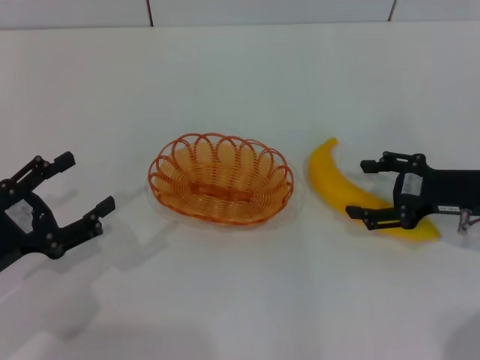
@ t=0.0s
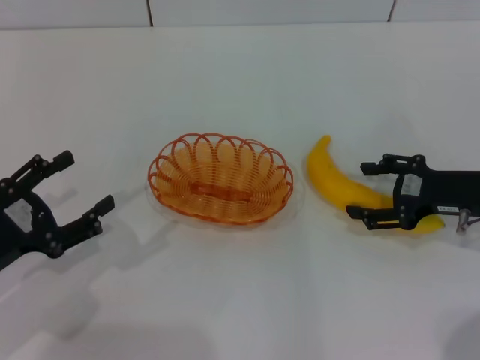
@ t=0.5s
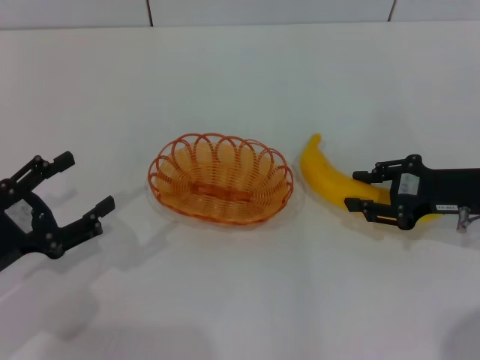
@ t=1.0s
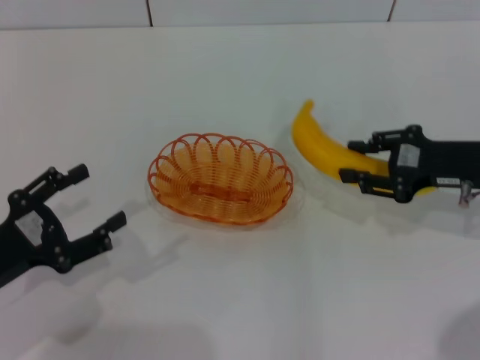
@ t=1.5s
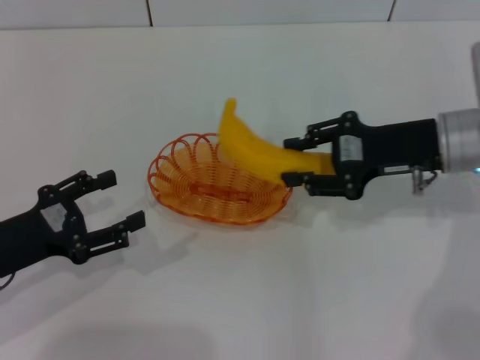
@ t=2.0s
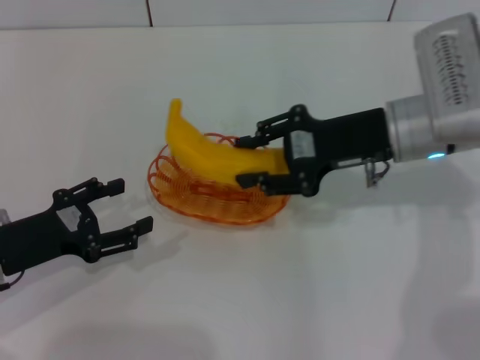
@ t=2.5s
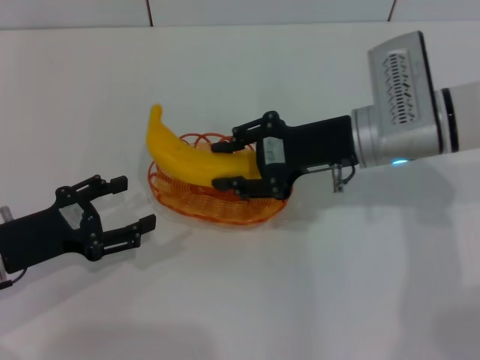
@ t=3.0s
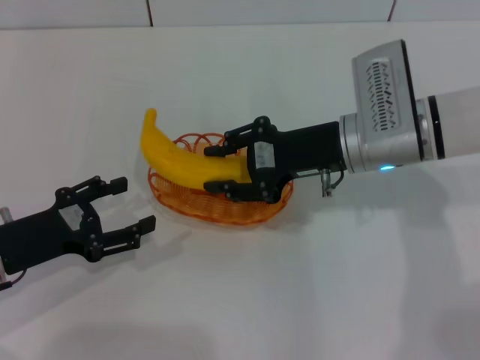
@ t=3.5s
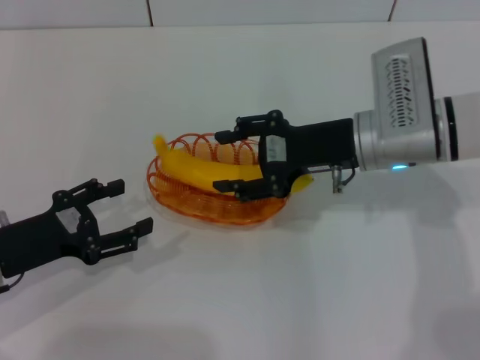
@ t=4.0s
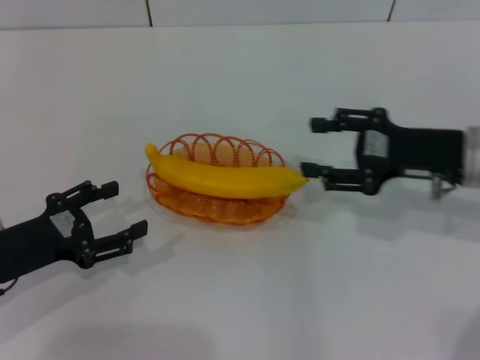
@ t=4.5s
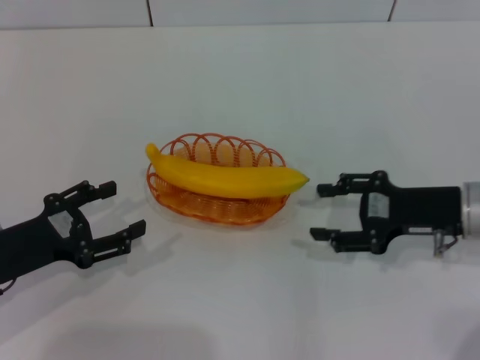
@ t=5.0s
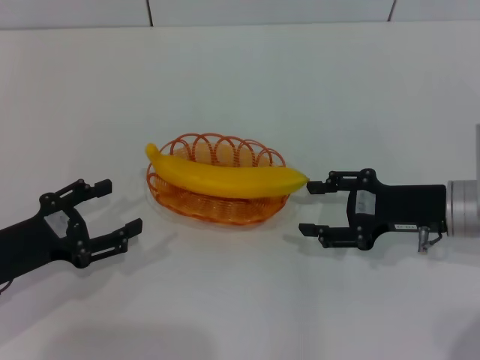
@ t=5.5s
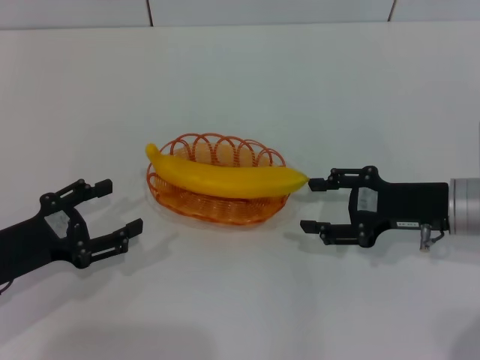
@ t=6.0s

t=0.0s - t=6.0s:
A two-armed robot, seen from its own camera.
Step, t=1.5s - t=4.0s: Place the banana into the basket with the right gripper.
t=0.0s - t=2.0s: The right gripper goes about 10 cm to the left and upward, and closes up.
t=2.0s - t=4.0s: The right gripper moves to the left, roughly 5 cm, and opens.
t=4.0s - t=6.0s: The right gripper shifts some 10 cm to the right and backward.

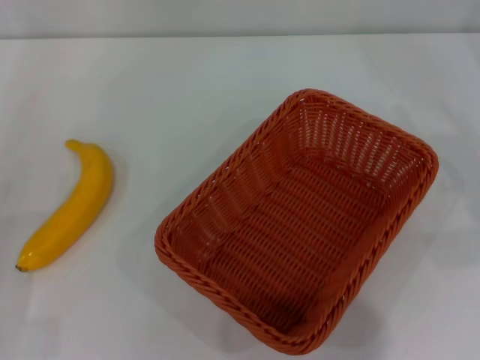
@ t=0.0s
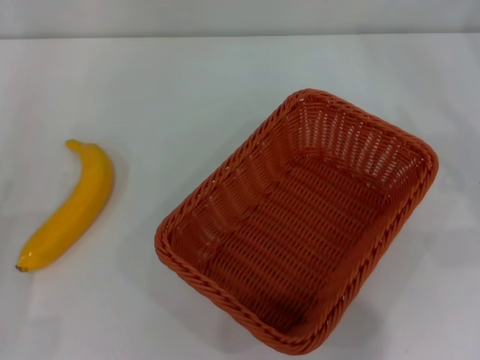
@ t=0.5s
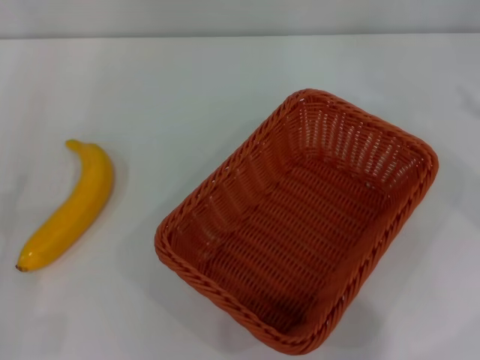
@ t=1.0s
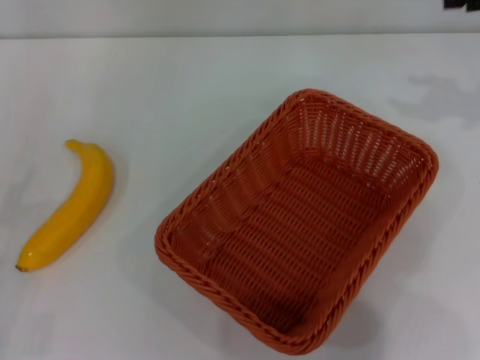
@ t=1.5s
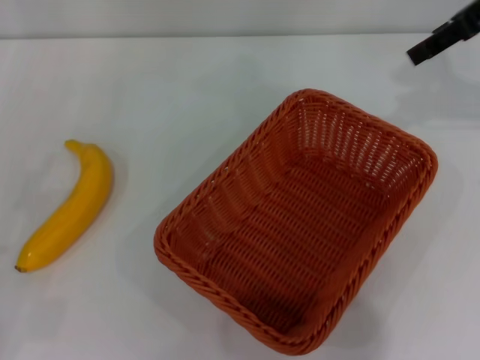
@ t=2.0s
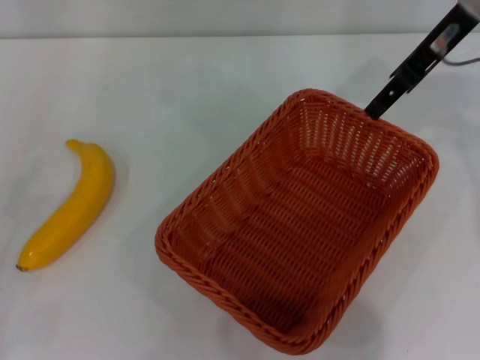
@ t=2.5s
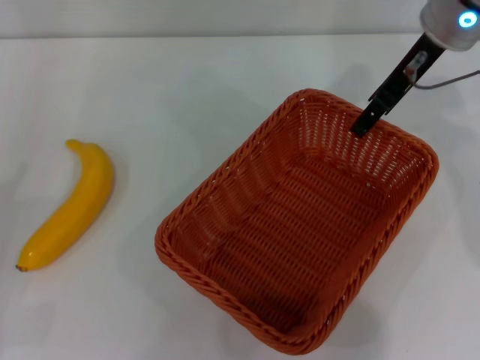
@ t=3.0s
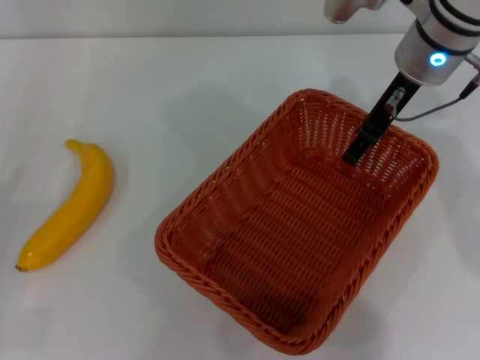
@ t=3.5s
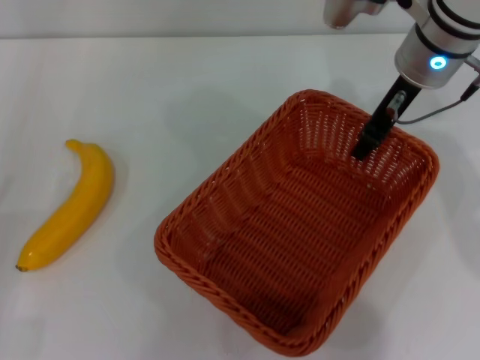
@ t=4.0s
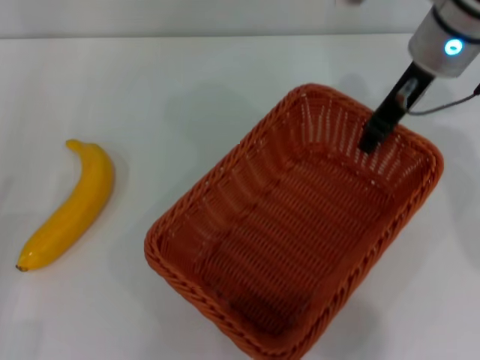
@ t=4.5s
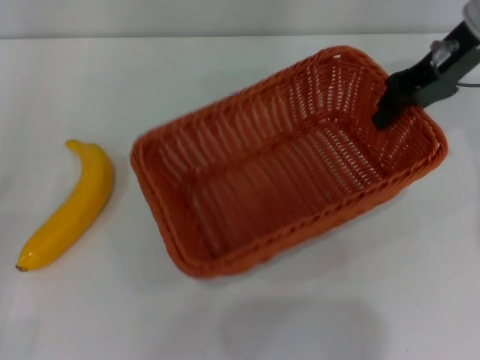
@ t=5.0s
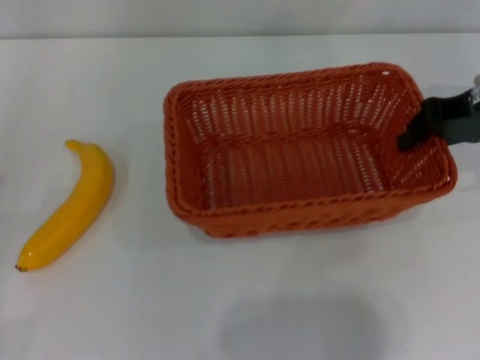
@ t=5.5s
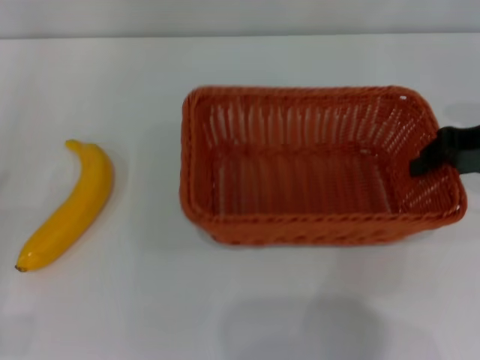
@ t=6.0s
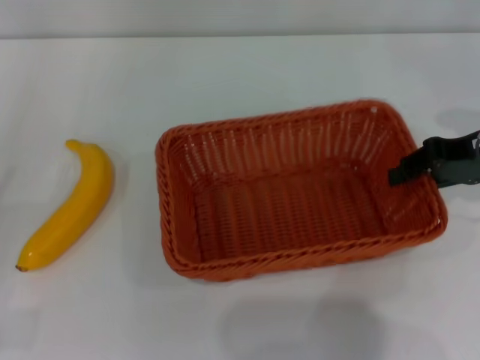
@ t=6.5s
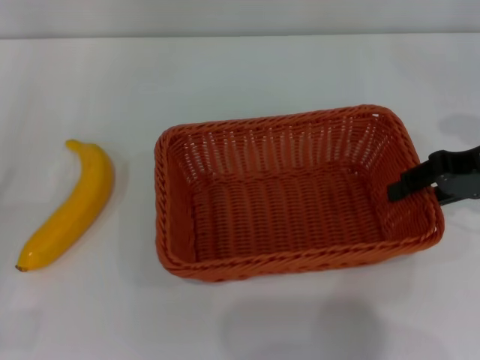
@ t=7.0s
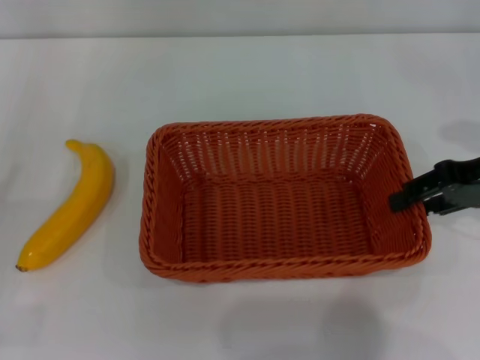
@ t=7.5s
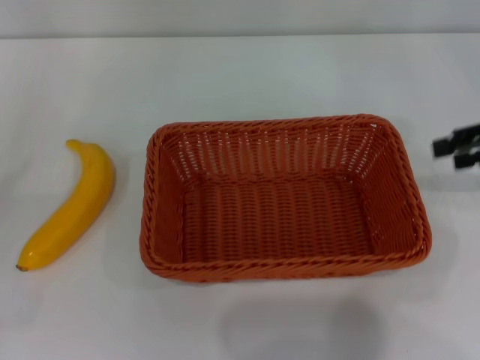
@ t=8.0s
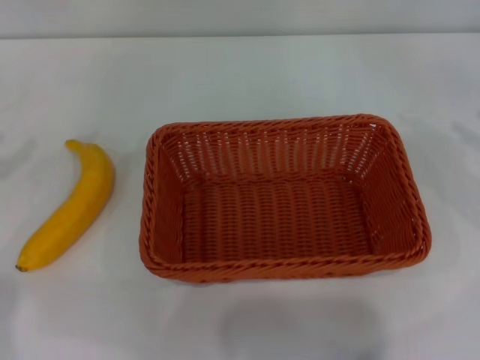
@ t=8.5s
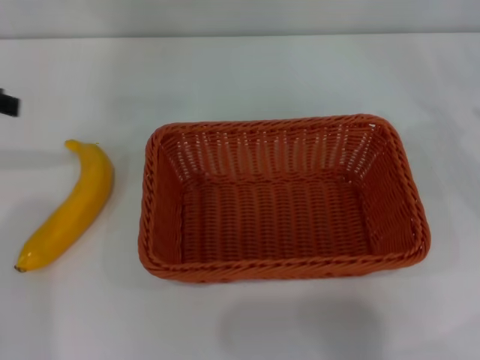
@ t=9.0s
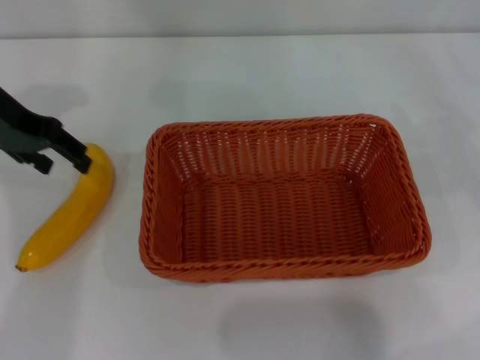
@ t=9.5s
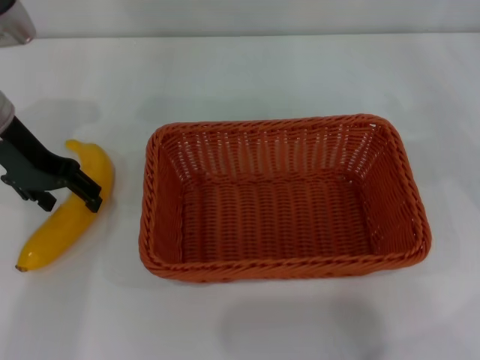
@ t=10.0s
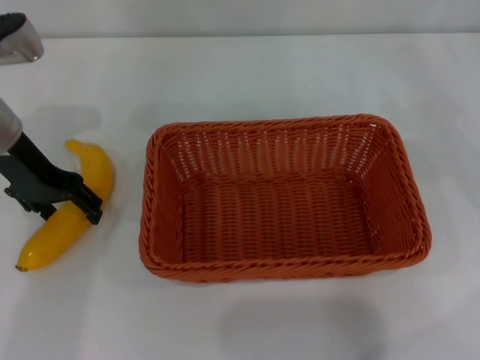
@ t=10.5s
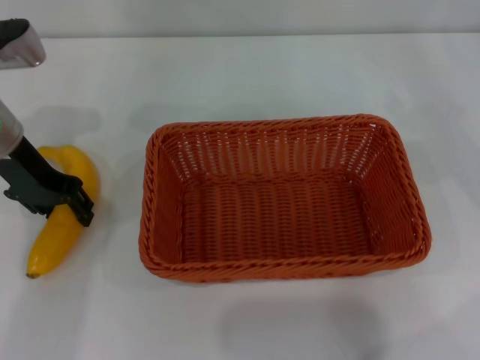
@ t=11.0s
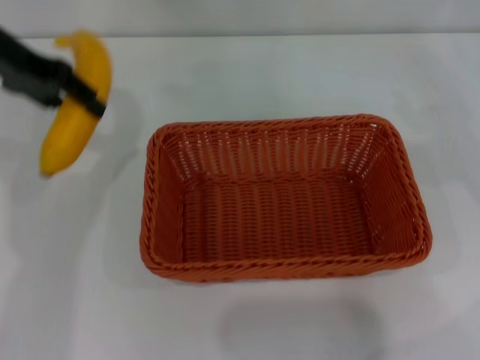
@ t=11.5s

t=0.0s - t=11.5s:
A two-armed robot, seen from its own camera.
Step, t=0.0s - t=4.5s: Pick up the light basket with the right gripper.
Step, t=5.0s - t=7.5s: Place the light basket in the center of view with the right gripper.
Step, t=8.0s - t=11.0s: Pick up the banana with the left gripper.
t=0.0s - t=2.0s: The right gripper shifts some 30 cm upward, forward and to the left.
t=2.0s - t=4.0s: The right gripper moves to the left and downward, roughly 15 cm, and closes up.
t=4.0s - t=6.0s: The right gripper shifts roughly 15 cm to the right and backward, and closes up.
t=6.0s - t=7.5s: The right gripper opens up.
t=7.5s - t=9.5s: The left gripper heads forward, to the right and upward, covering approximately 30 cm; the right gripper shifts some 15 cm to the right, and opens its fingers.
t=9.5s - t=11.5s: The left gripper closes its fingers.

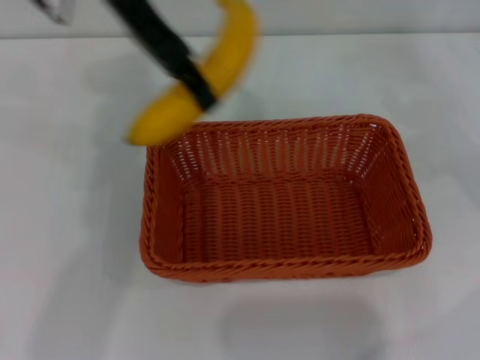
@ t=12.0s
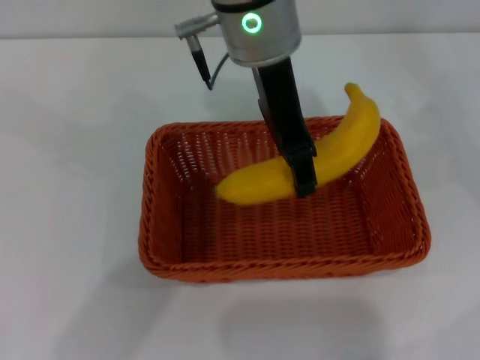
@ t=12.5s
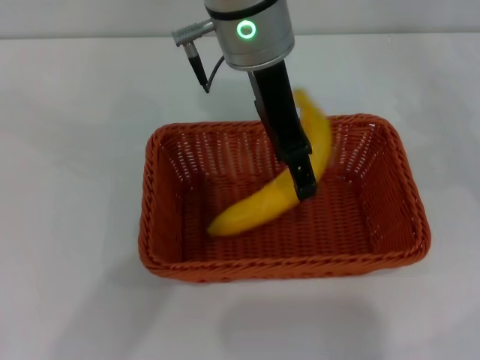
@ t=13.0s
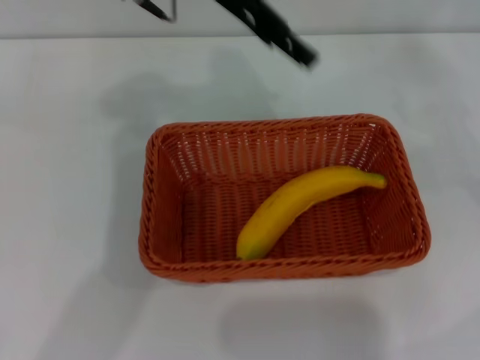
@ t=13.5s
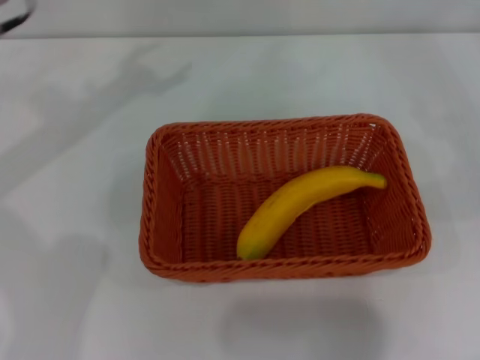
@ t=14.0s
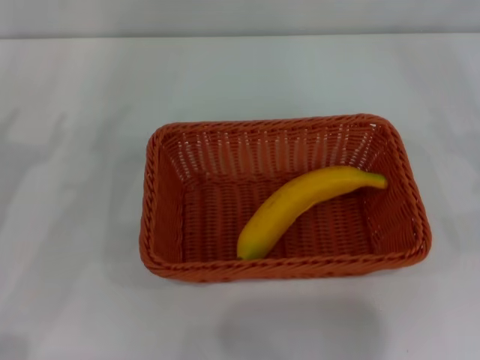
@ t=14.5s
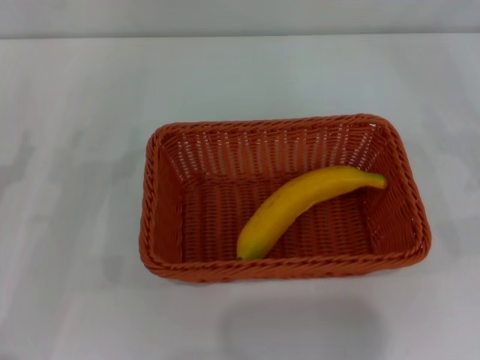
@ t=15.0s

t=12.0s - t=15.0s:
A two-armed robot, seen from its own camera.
Step, t=12.0s - t=13.0s: Place the banana into the light basket with the left gripper.
t=12.0s - t=13.5s: The left gripper opens up.
t=13.5s - t=15.0s: The left gripper moves to the left, downward and backward, some 40 cm; the right gripper heads downward and backward, covering about 10 cm.

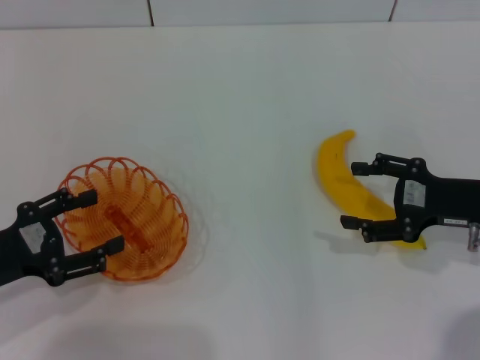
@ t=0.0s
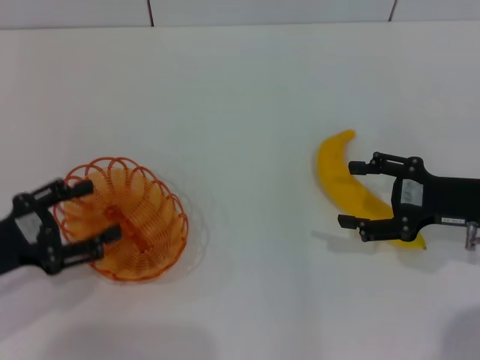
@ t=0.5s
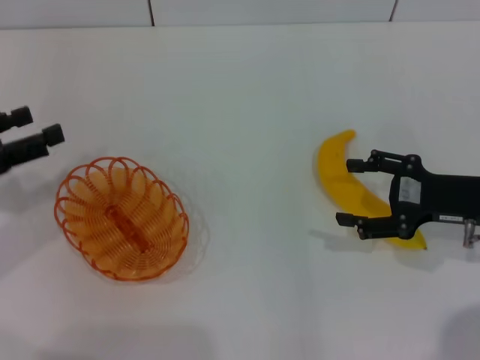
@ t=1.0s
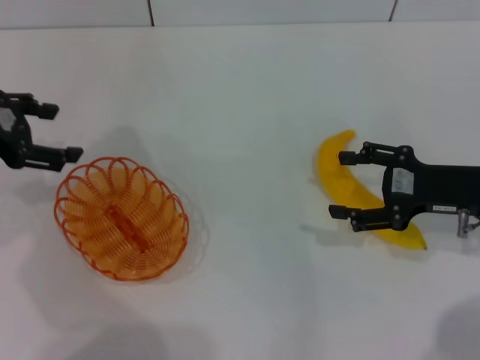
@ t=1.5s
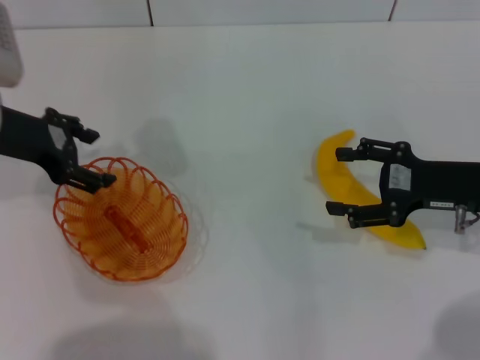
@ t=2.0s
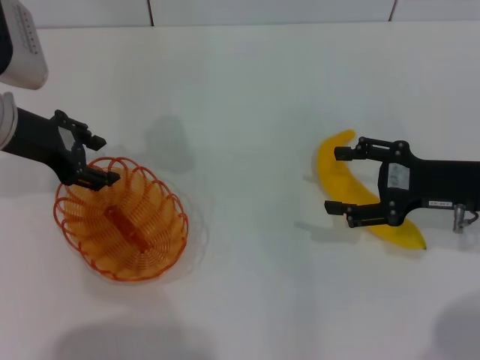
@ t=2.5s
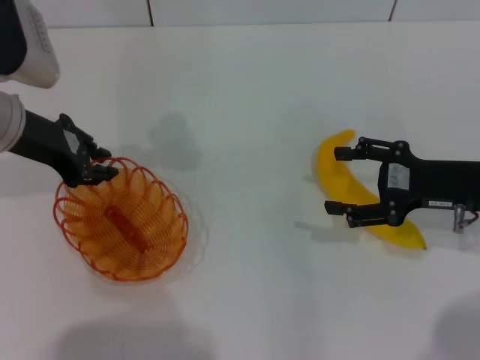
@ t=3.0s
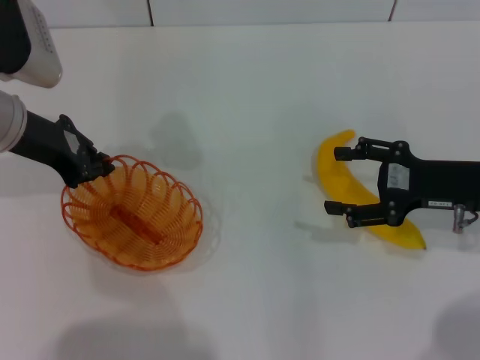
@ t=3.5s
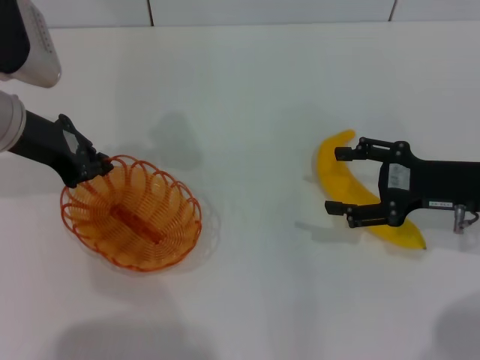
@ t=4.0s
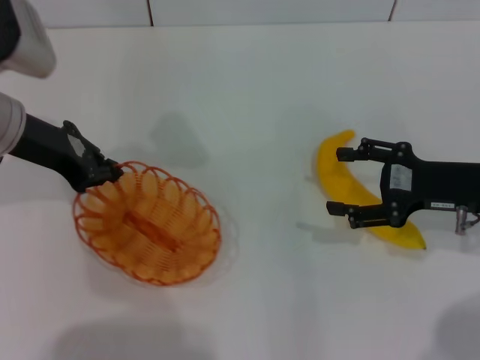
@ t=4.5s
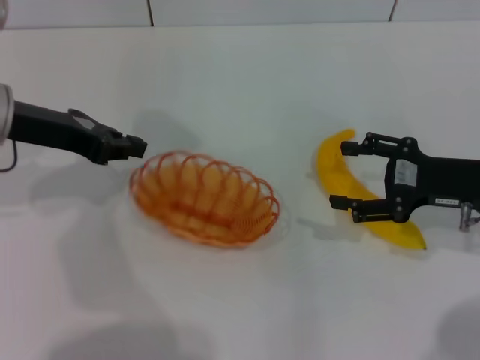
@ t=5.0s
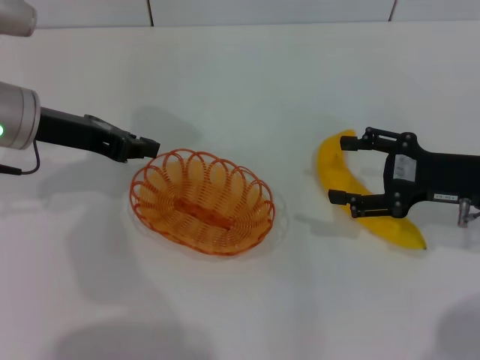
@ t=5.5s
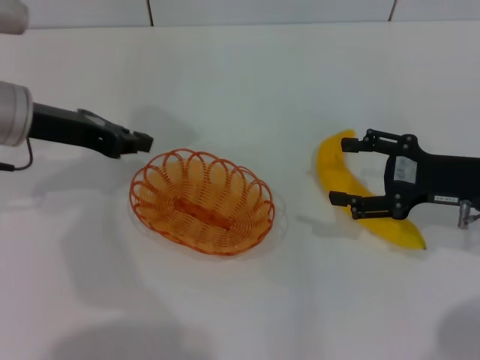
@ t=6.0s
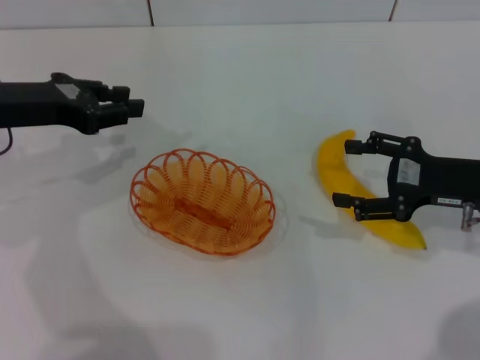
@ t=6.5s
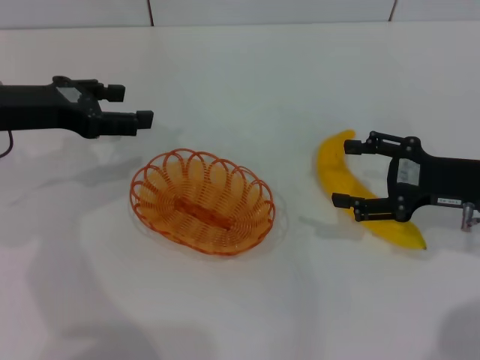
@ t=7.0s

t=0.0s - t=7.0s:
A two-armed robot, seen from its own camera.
t=0.0s - t=2.0s: The left gripper moves forward and upward, some 15 cm.
t=2.0s - t=3.5s: The left gripper closes.
t=5.0s - t=7.0s: The left gripper opens.
